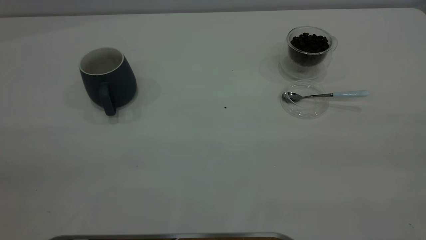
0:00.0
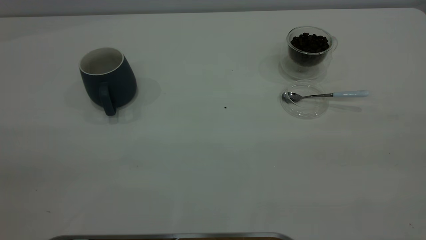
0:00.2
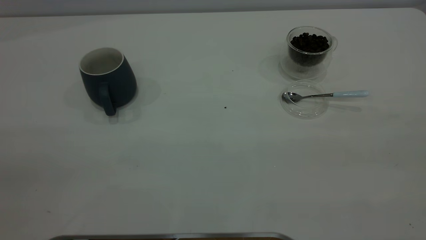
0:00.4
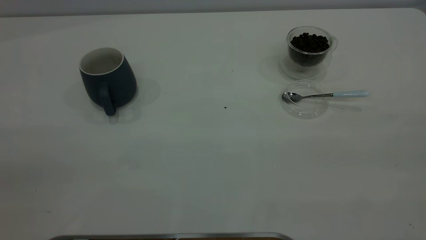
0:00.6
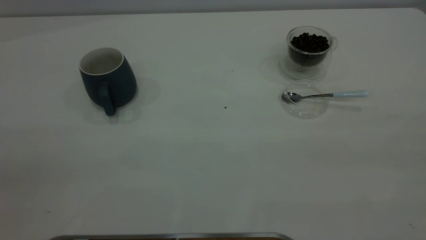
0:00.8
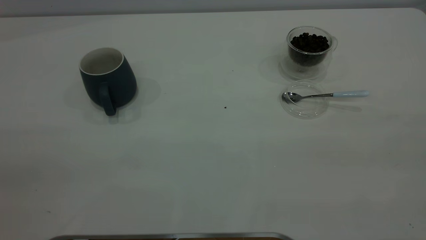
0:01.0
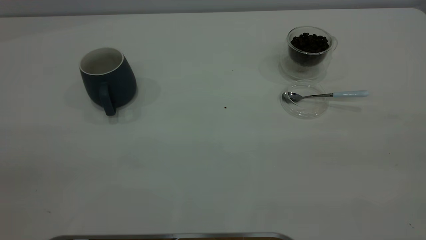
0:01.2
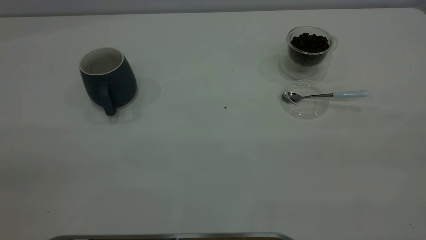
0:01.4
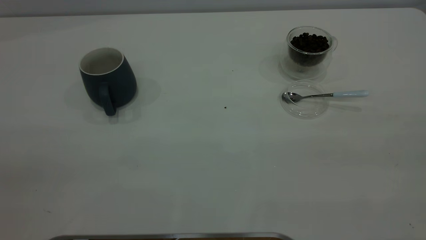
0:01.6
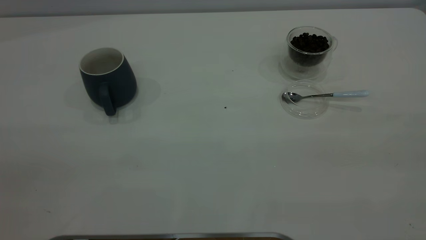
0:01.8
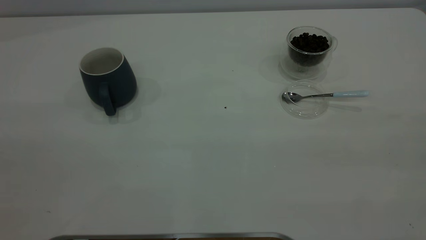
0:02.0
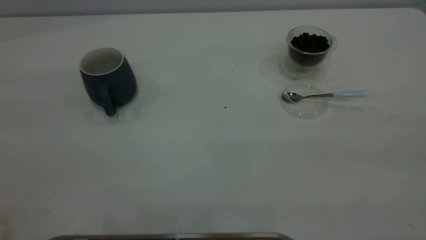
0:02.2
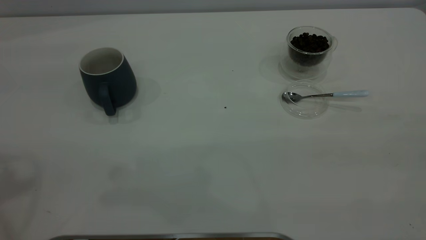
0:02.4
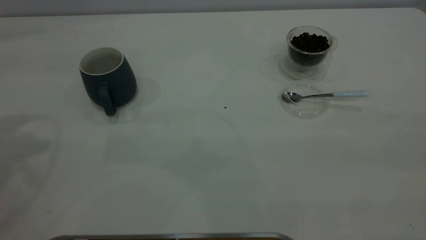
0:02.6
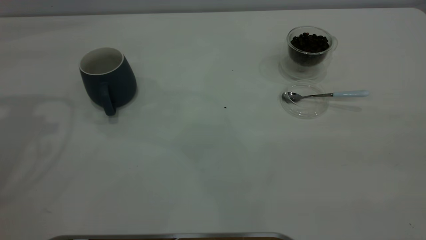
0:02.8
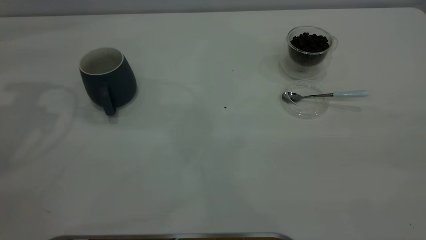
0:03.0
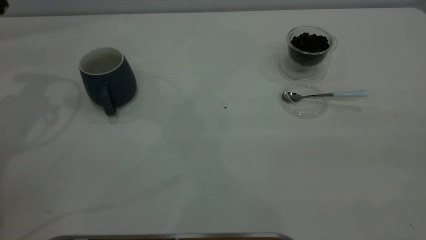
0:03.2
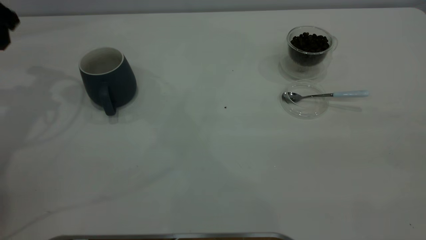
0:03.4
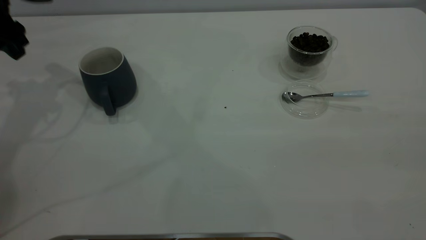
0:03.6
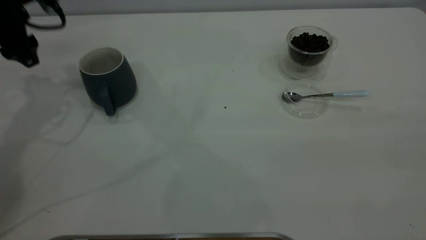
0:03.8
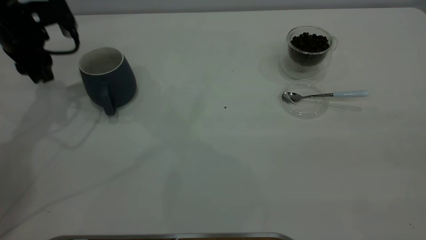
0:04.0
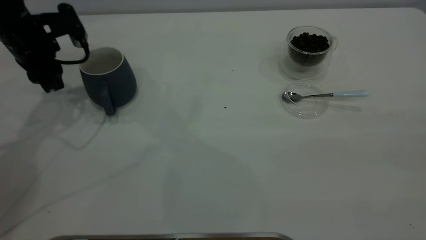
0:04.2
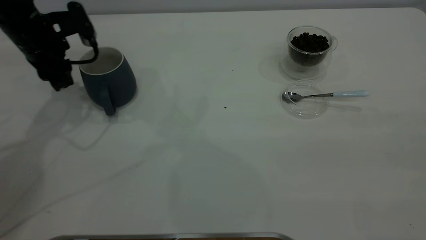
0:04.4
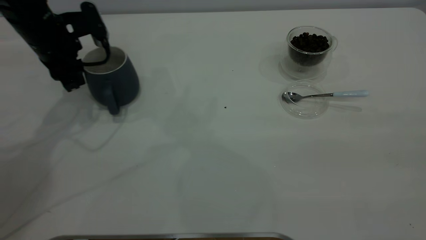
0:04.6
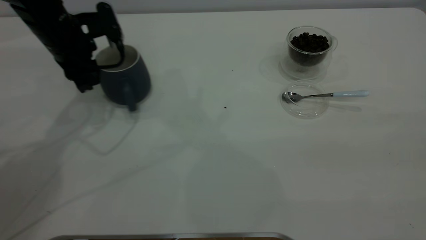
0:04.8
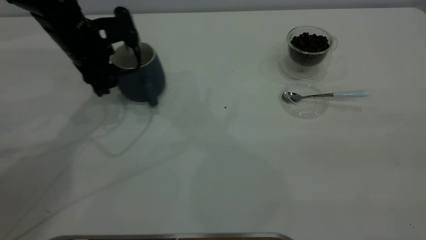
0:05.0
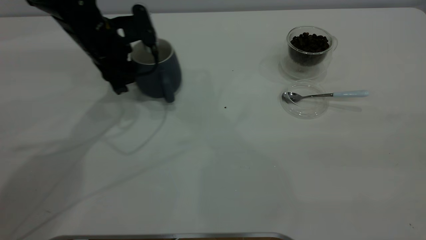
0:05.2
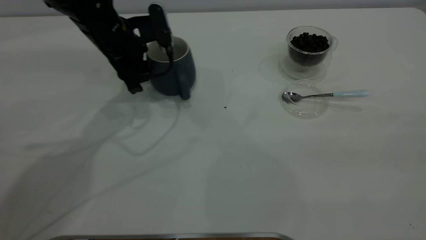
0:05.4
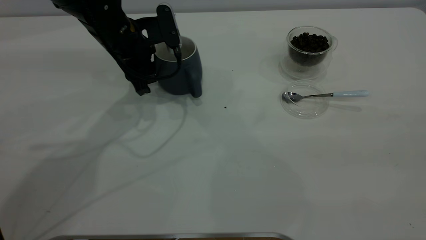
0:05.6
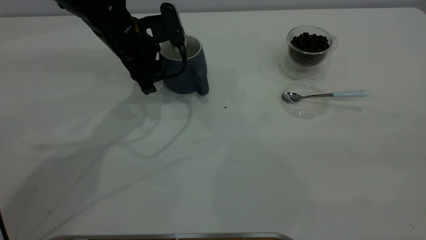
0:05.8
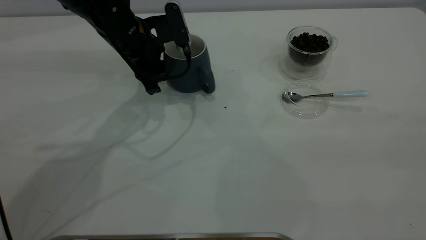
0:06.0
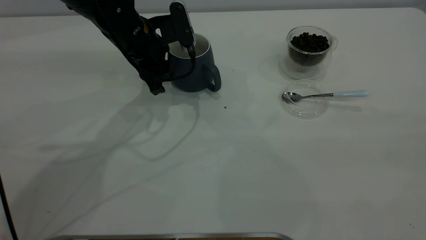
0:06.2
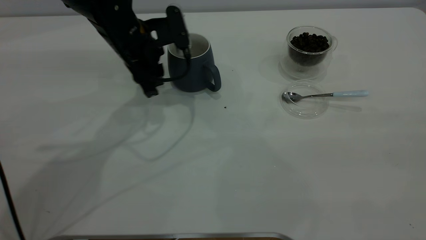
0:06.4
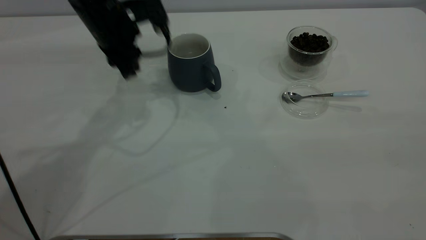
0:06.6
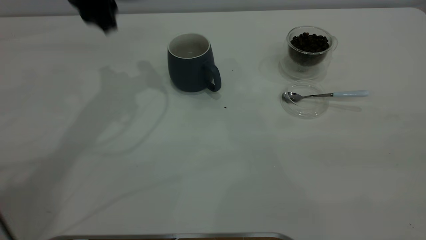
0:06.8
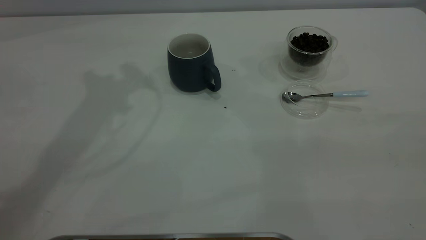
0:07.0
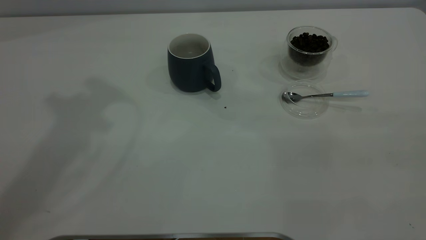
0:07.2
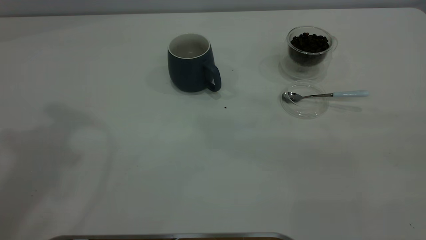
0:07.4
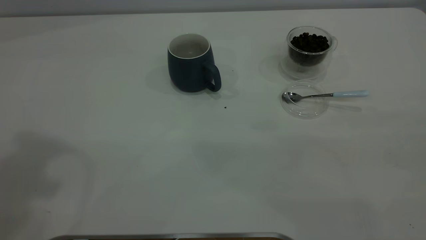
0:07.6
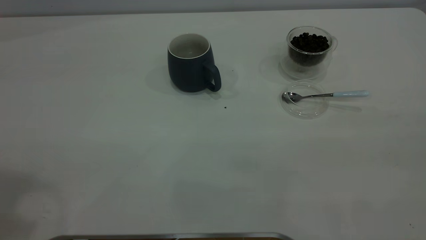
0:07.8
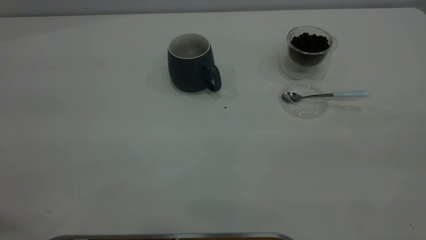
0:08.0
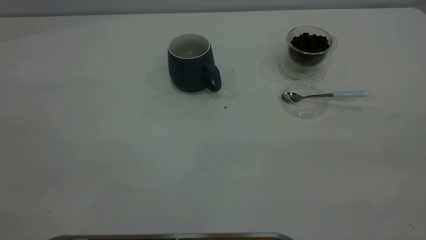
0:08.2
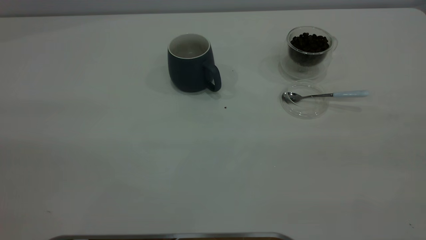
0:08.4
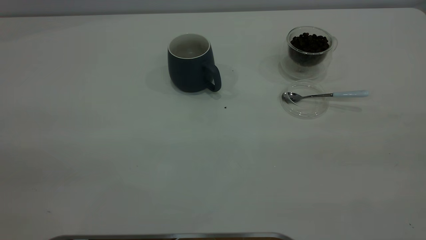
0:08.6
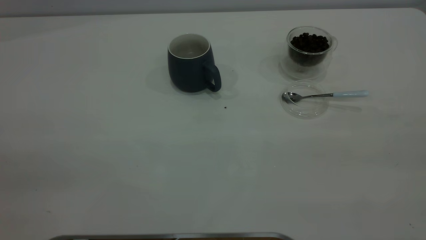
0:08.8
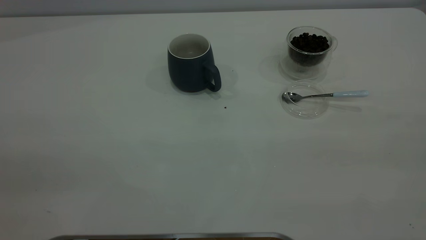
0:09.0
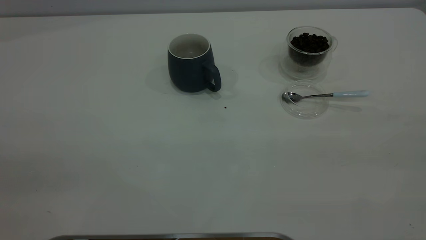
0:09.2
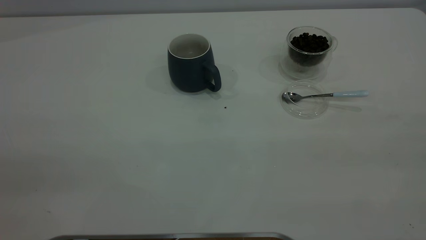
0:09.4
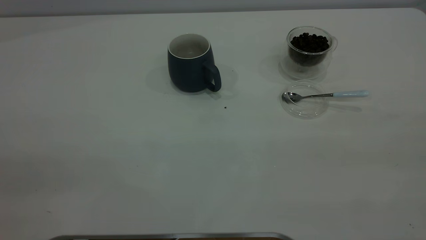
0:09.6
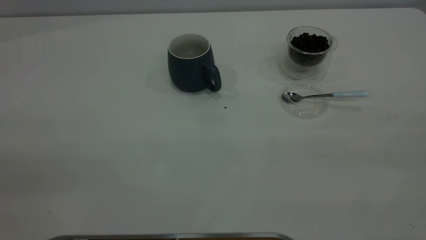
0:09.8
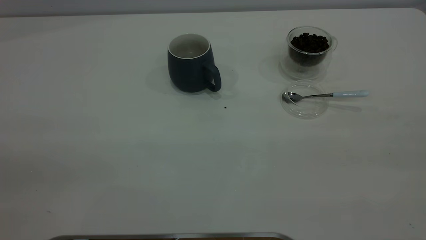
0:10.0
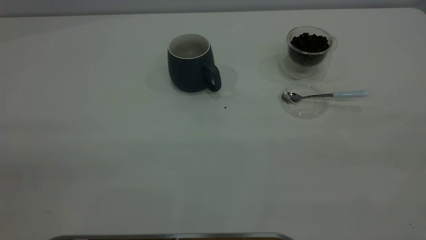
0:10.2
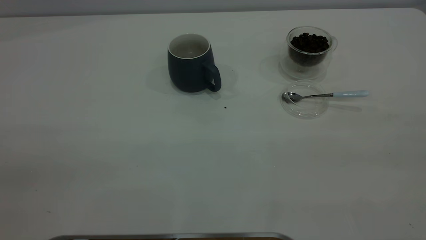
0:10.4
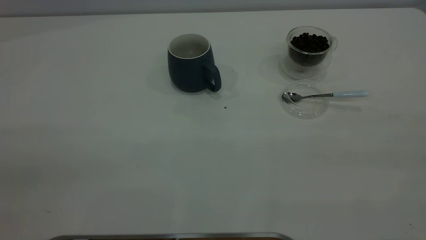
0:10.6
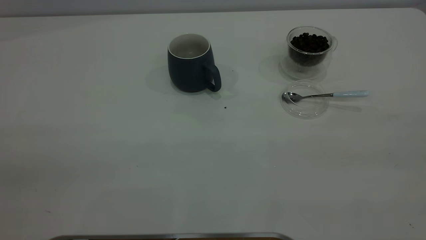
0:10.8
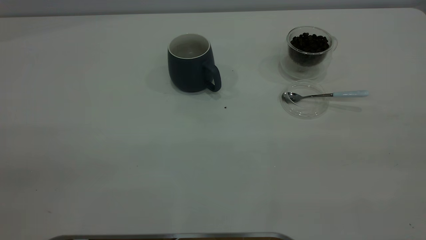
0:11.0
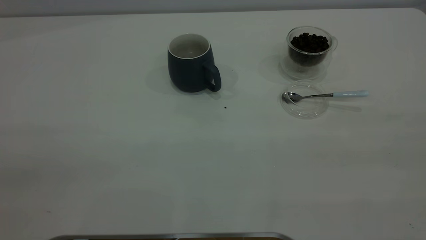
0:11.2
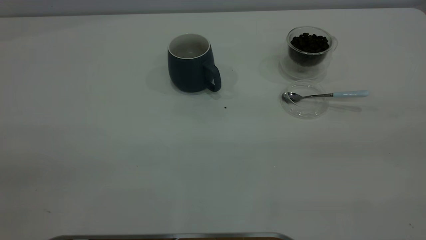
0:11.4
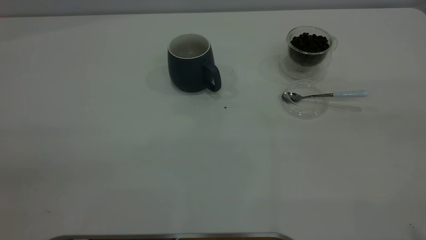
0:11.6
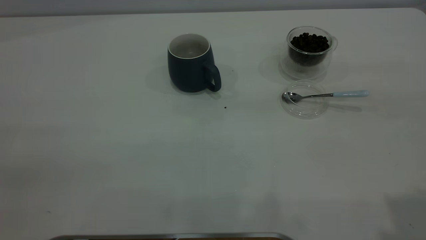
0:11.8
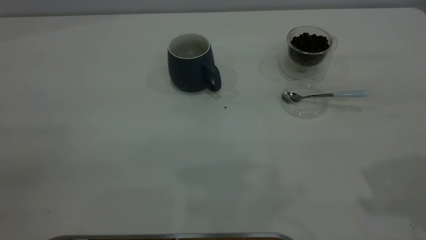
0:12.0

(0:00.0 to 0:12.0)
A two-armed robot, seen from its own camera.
Task of the whole recording: the left gripper place the grey cup in the center of the table, the right gripper take the blue spoon from the cup lid and scoop out the coffee beans from the coffee cup and put them into the grey cup, the right gripper put the spoon back into the cup lid.
Step, 0:00.0 - 0:06.6: Move the cup to the center of view.
0:00.0 - 0:01.6: Both grippers stay about where they are.
0:03.0 - 0:04.4: The left gripper heads downward, covering about 15 cm, and closes up.
0:04.4 - 0:06.0: The left gripper goes approximately 15 cm to the right.
0:06.0 - 0:07.6: The left gripper shifts approximately 40 cm upward and backward.

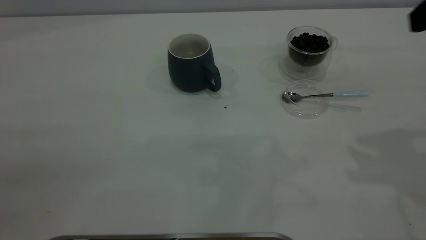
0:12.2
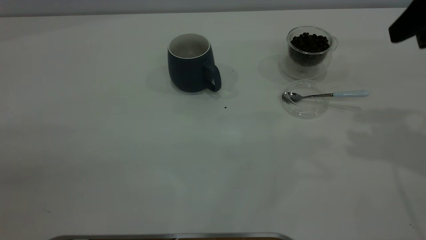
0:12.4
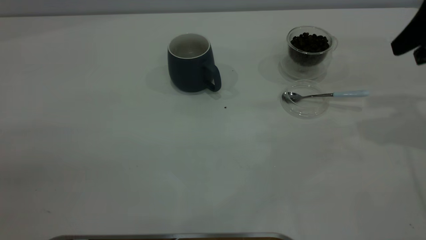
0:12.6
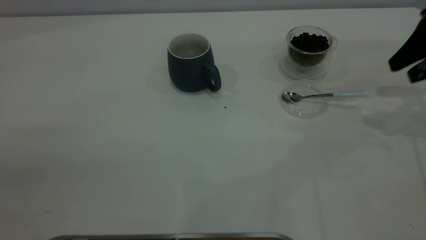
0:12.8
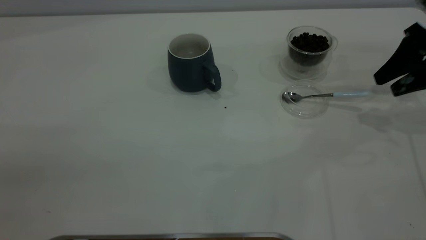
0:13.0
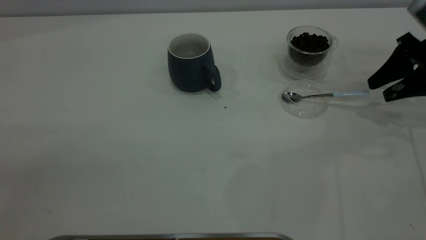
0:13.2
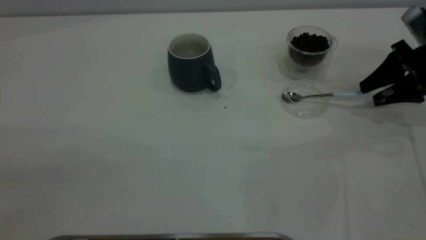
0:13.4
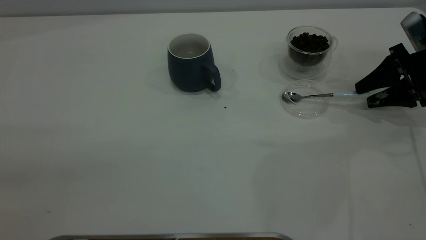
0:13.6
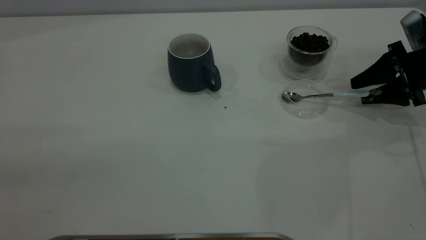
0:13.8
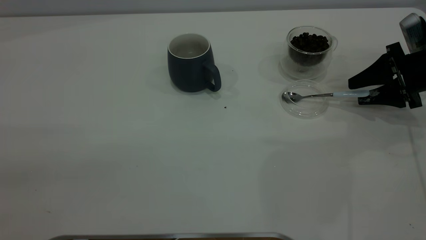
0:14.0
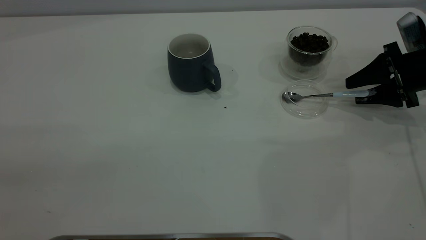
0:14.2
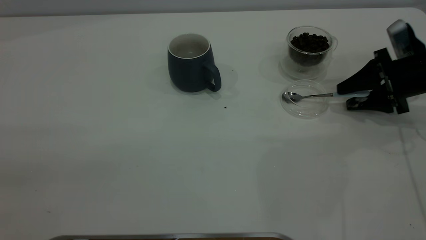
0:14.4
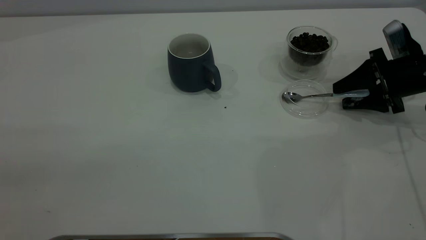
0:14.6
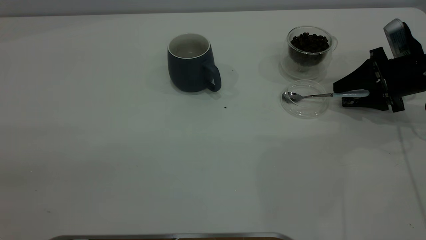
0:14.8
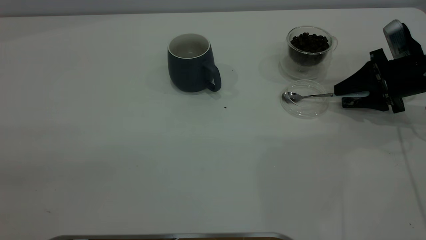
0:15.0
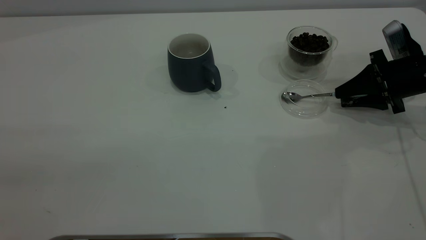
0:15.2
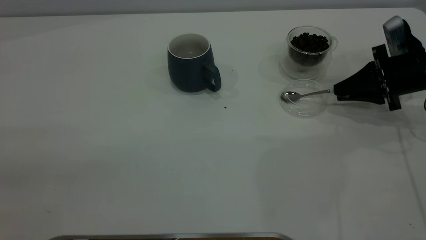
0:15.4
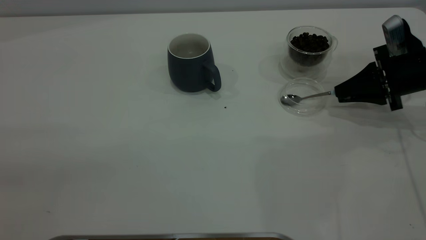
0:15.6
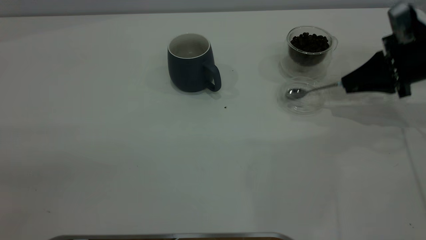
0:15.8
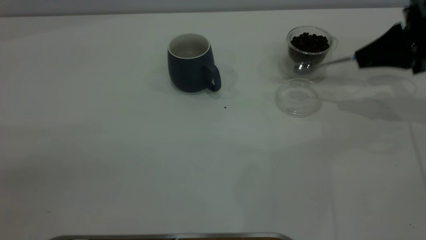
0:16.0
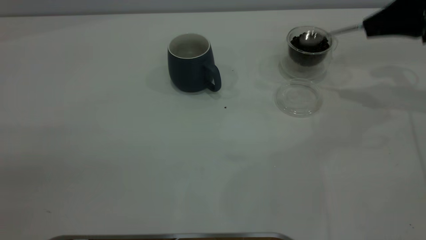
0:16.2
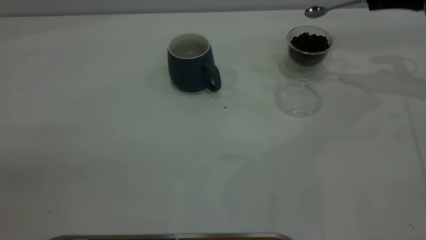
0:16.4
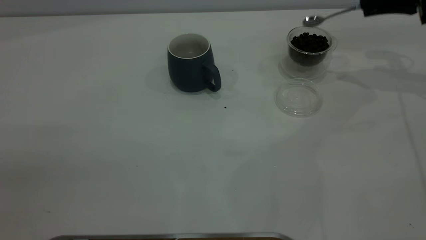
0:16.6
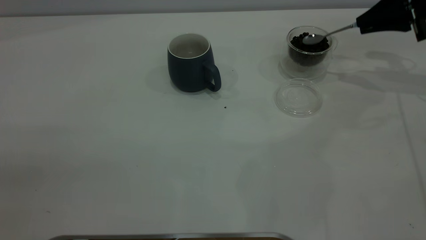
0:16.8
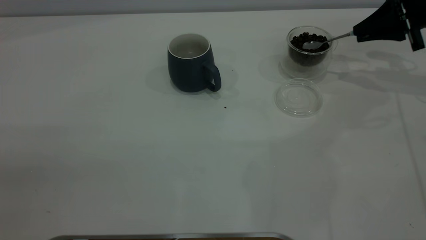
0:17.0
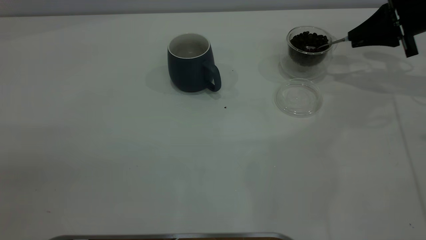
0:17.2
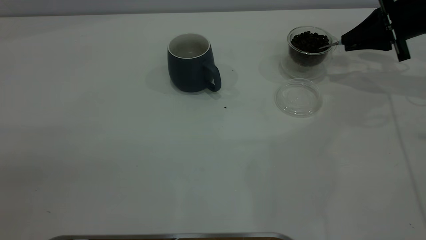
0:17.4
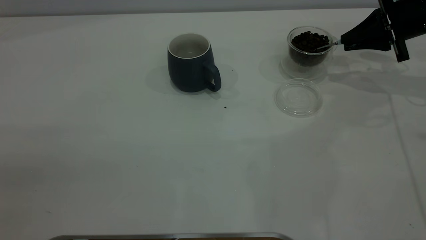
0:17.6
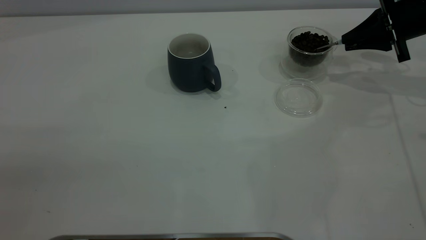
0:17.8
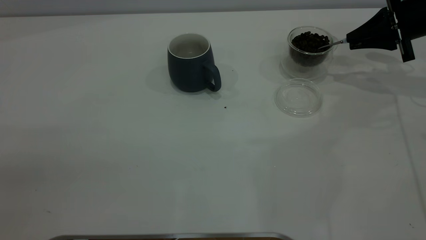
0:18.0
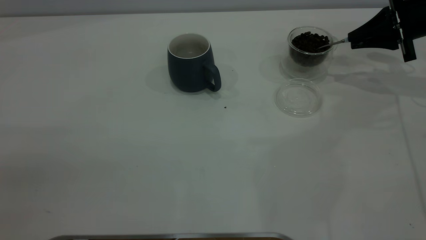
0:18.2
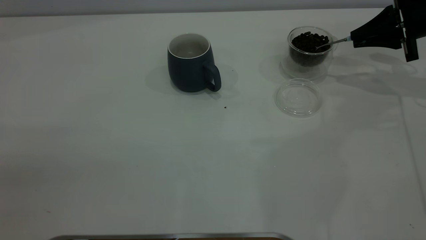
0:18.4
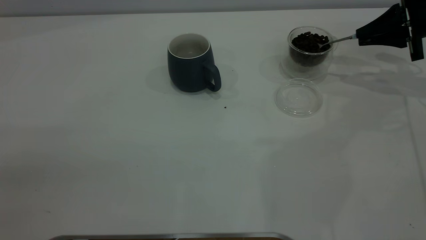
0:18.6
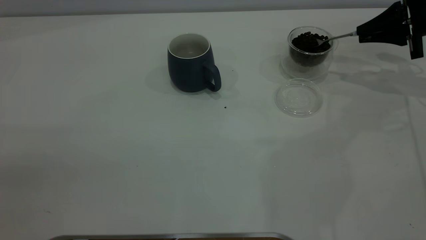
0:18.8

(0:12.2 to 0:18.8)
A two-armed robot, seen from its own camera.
Task of the whole recording: the left gripper place the grey cup in the center of the table, the right gripper take the blue spoon from the cup lid and scoop out the coffee beans from the coffee cup and put them into the grey cup, the right gripper put the spoon back into the cup lid.
Step, 0:12.2 - 0:15.8: Pick up the spoon.
0:12.2 - 0:13.8: The right gripper travels downward and forward by approximately 25 cm.
0:13.8 - 0:15.4: The right gripper closes.
0:15.4 - 0:17.2: The right gripper travels forward and upward by some 10 cm.
0:17.2 - 0:18.8: There are only small adjustments of the grippers.
